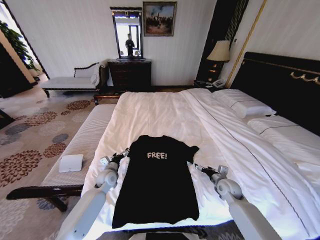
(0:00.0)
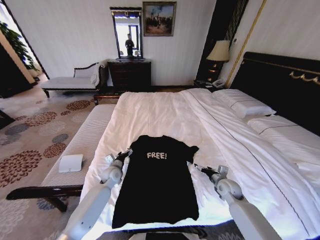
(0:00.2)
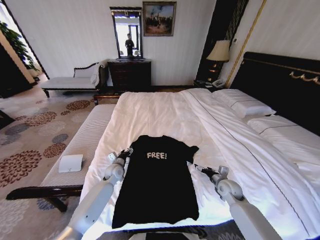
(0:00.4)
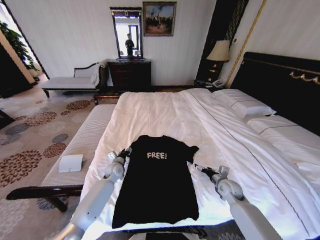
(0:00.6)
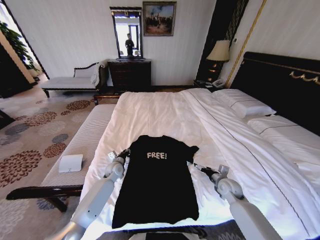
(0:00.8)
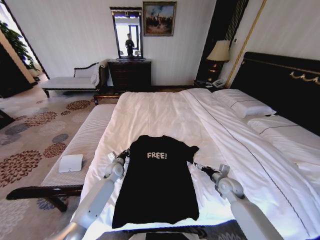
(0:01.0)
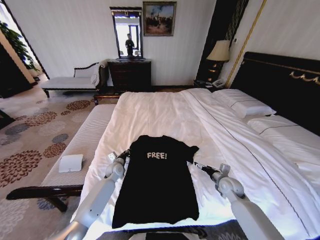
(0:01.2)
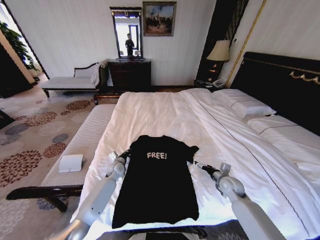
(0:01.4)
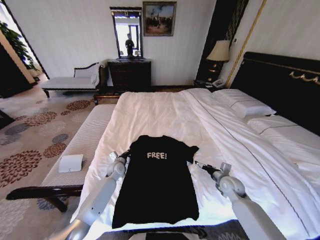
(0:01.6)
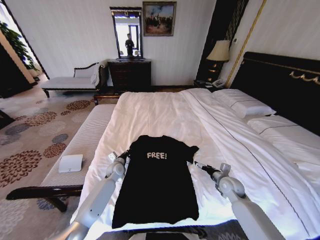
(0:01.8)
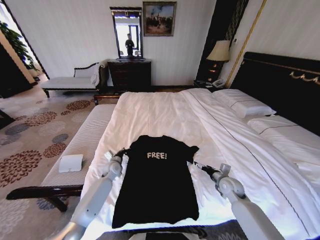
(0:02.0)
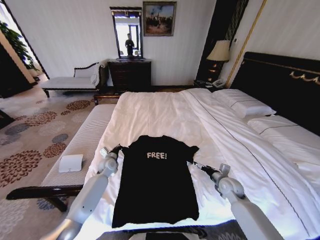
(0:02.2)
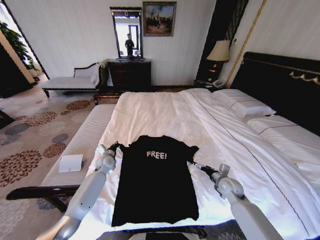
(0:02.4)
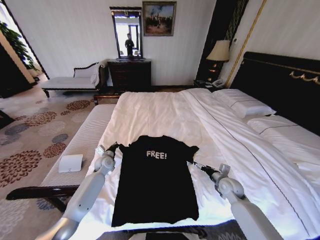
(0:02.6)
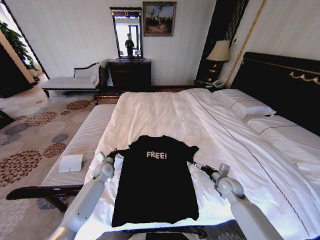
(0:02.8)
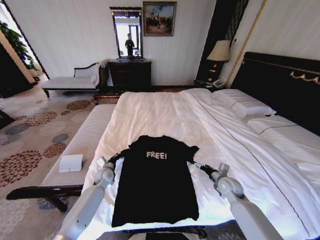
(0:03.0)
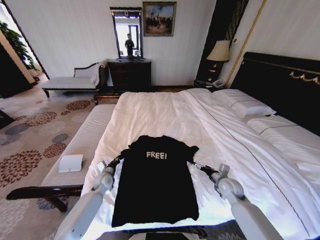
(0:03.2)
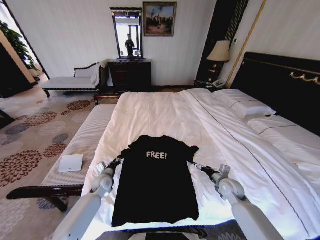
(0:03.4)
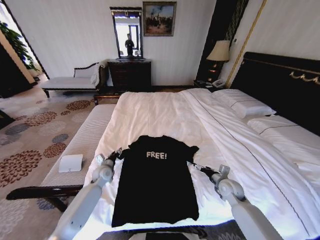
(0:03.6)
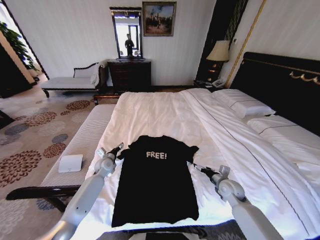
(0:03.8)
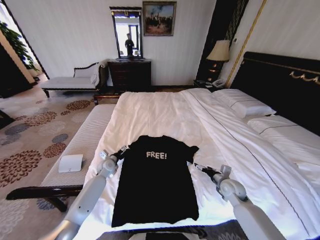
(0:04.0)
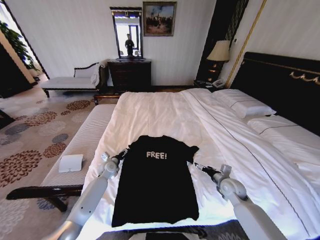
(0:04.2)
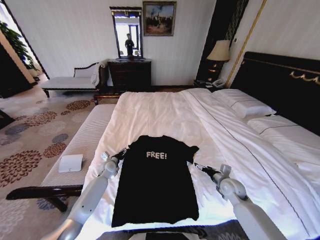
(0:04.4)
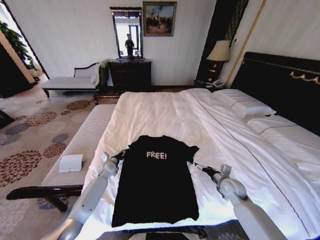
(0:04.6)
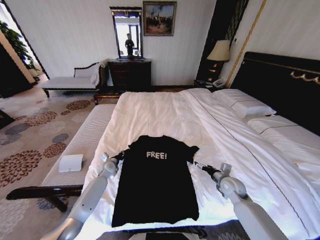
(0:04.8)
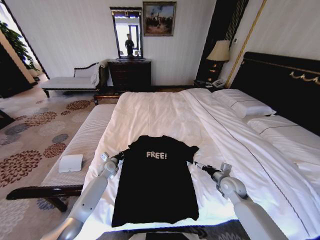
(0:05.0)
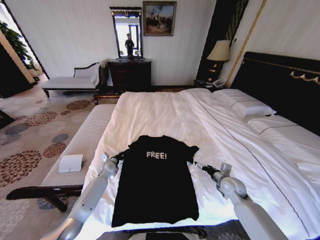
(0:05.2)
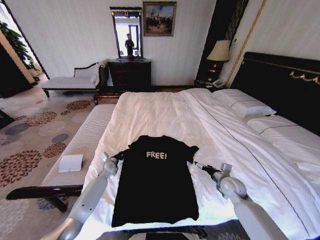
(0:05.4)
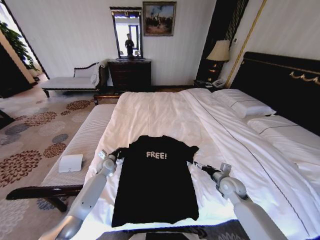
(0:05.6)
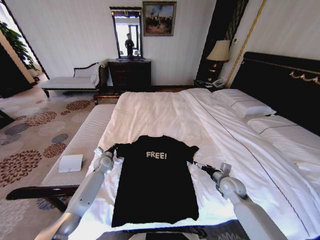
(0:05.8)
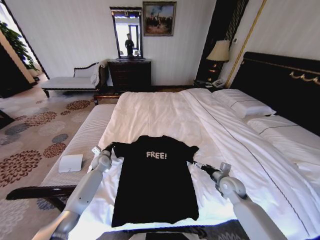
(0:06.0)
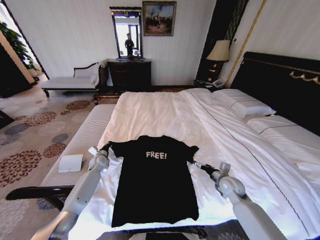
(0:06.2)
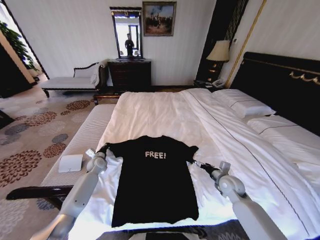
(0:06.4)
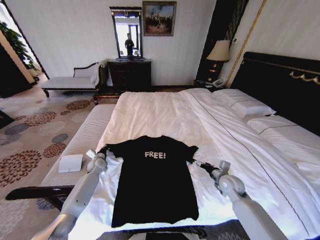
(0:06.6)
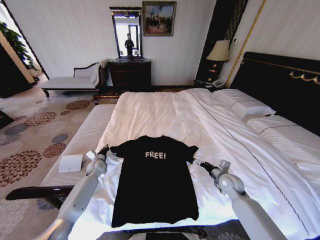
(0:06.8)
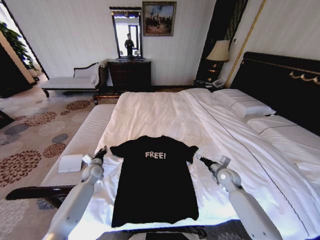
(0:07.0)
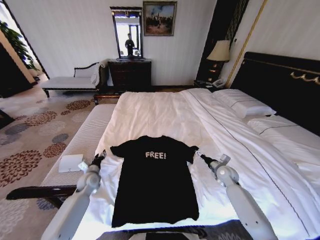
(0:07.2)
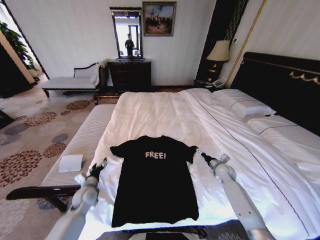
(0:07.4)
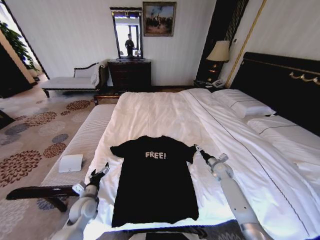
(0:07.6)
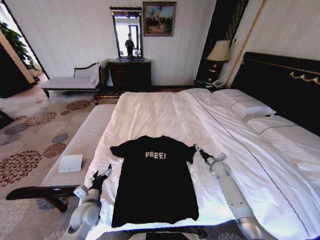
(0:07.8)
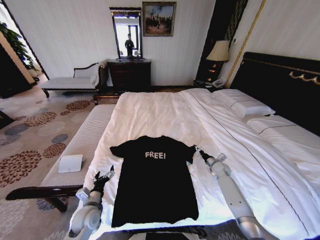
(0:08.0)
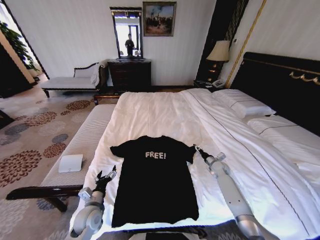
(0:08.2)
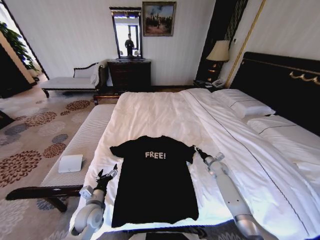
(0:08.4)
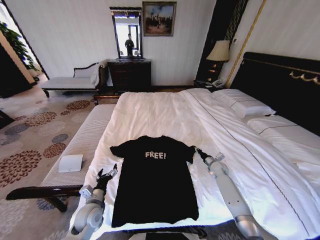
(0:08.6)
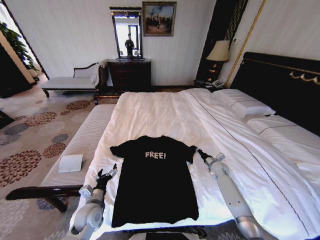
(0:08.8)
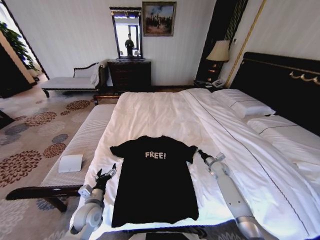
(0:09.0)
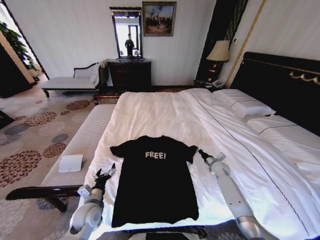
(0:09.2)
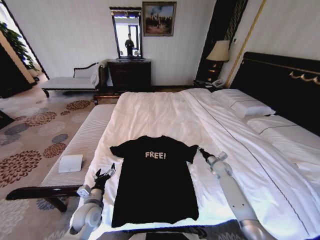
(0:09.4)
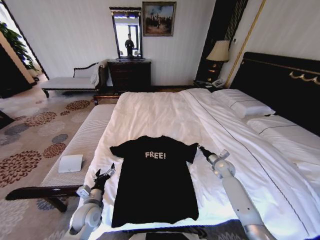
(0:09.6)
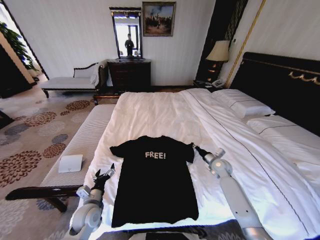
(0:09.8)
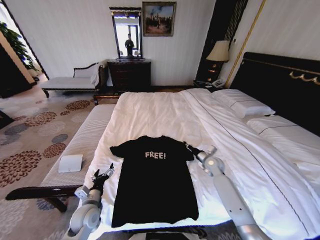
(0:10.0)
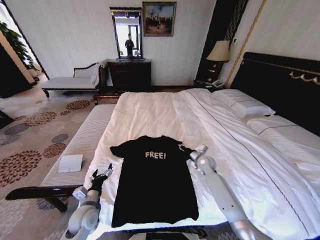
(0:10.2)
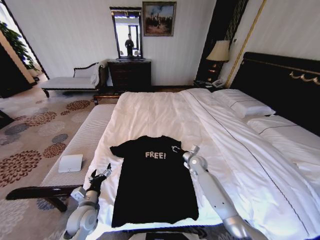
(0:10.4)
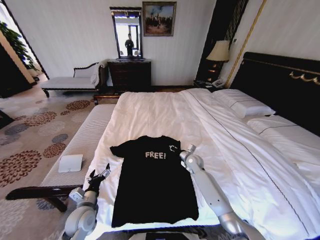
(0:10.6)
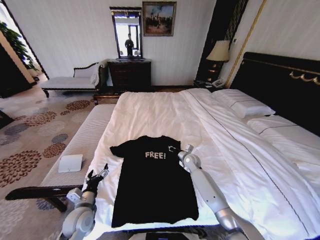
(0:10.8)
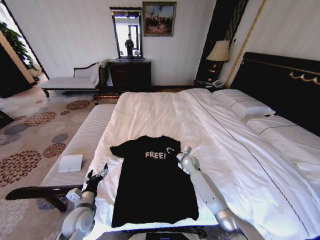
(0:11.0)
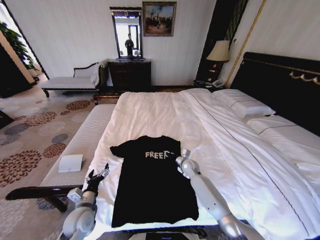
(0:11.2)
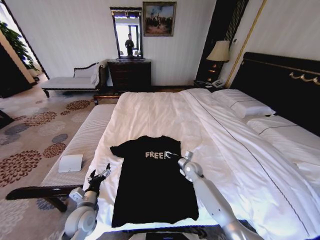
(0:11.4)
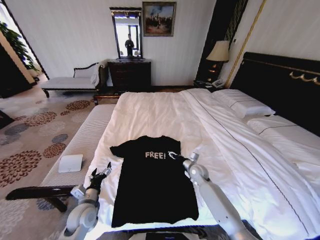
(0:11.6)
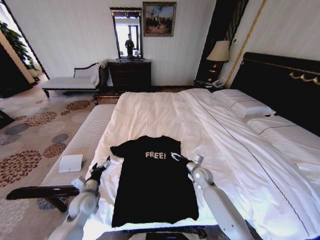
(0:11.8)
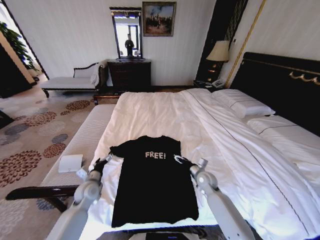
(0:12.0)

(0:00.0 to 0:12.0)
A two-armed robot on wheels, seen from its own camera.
Task of the whole recording: Fold the clothes on the bed.
0:00.0 - 0:01.6: The left gripper travels forward by about 5 cm, and closes up.
0:01.6 - 0:03.0: The left gripper moves to the left, approximately 5 cm.
0:03.0 - 0:04.4: The left gripper opens up.
0:04.4 - 0:06.0: The left gripper changes place by roughly 5 cm, and closes up.
0:06.0 - 0:07.6: The left gripper goes some 25 cm backward, and opens its fingers; the right gripper goes roughly 15 cm forward and downward.
0:07.6 - 0:09.0: The right gripper closes up.
0:09.0 - 0:10.4: The right gripper moves to the left, some 15 cm.
0:10.4 - 0:12.0: The left gripper is displaced forward by some 10 cm. The right gripper heads backward, covering roughly 10 cm, and opens.

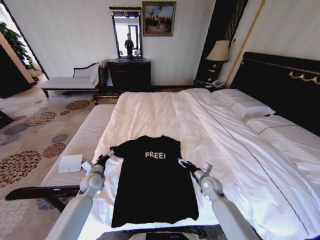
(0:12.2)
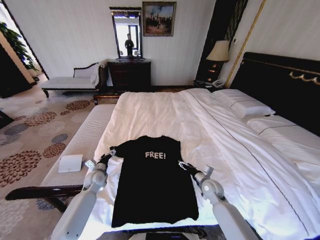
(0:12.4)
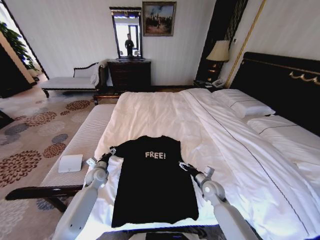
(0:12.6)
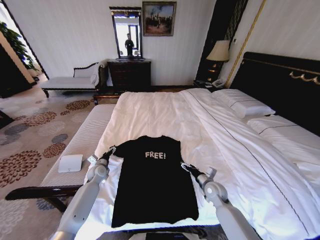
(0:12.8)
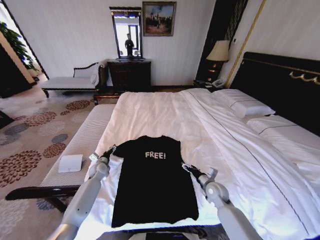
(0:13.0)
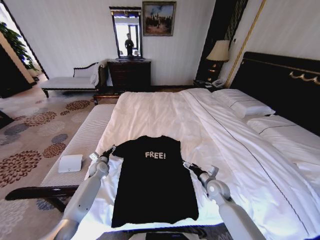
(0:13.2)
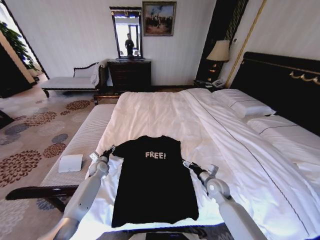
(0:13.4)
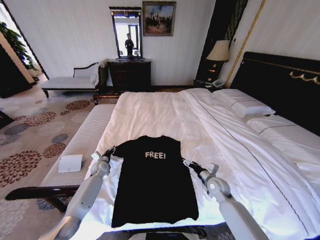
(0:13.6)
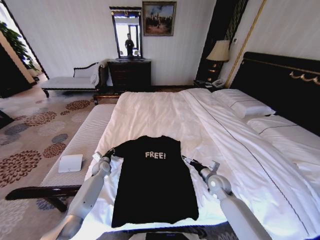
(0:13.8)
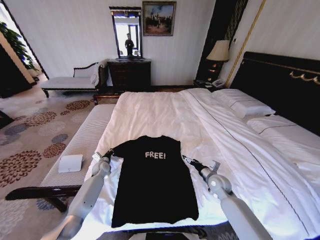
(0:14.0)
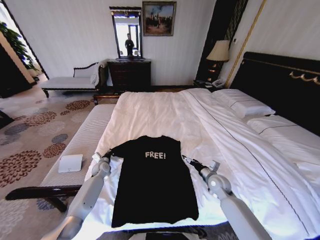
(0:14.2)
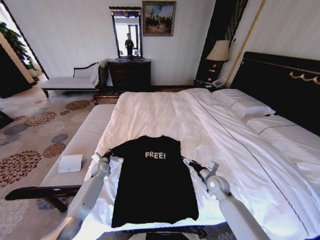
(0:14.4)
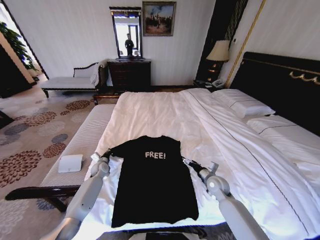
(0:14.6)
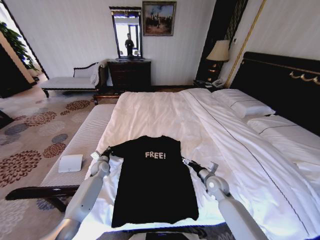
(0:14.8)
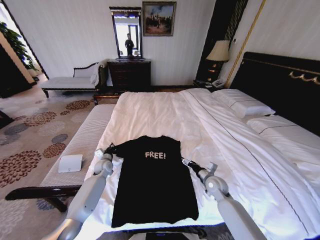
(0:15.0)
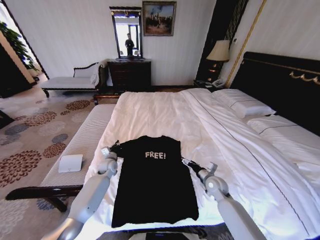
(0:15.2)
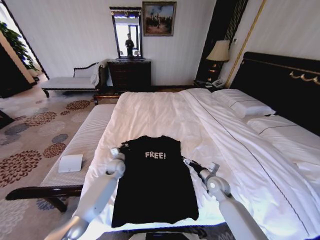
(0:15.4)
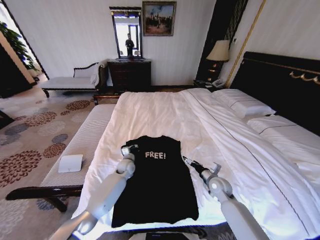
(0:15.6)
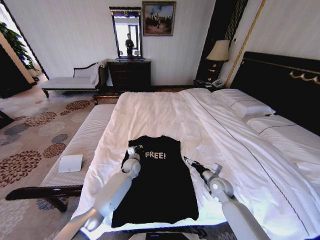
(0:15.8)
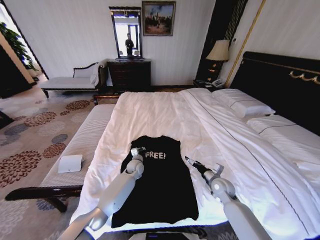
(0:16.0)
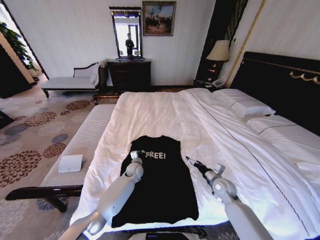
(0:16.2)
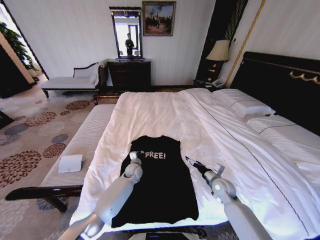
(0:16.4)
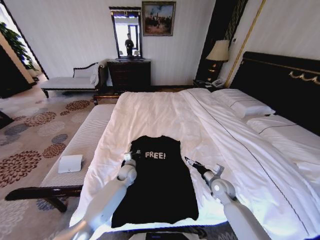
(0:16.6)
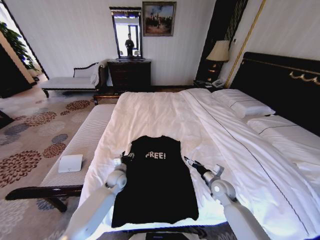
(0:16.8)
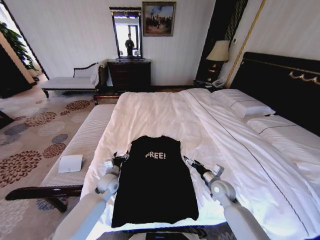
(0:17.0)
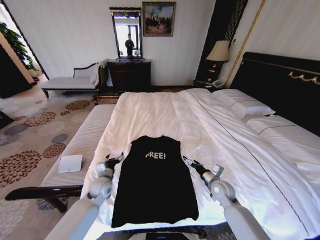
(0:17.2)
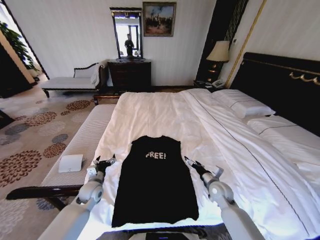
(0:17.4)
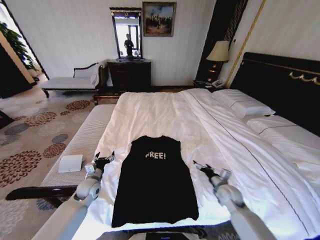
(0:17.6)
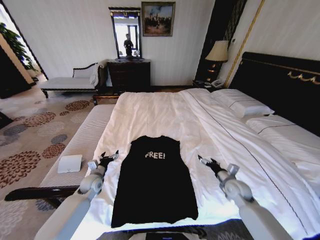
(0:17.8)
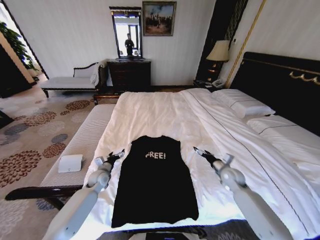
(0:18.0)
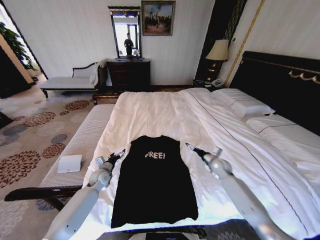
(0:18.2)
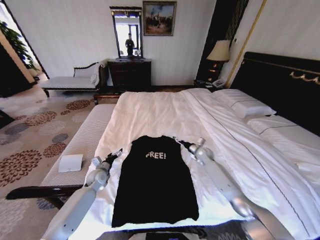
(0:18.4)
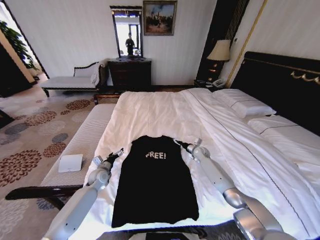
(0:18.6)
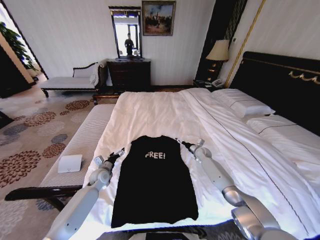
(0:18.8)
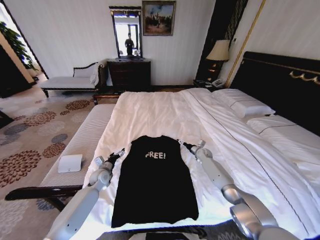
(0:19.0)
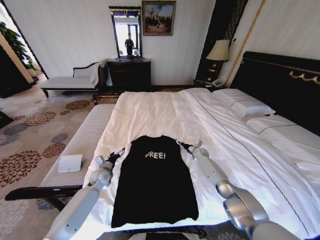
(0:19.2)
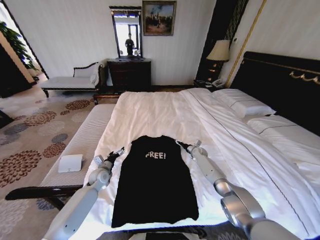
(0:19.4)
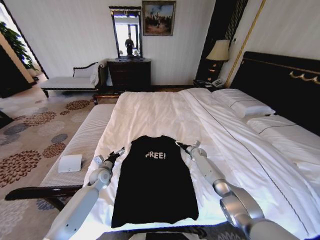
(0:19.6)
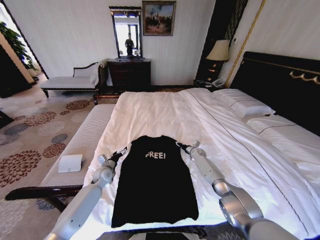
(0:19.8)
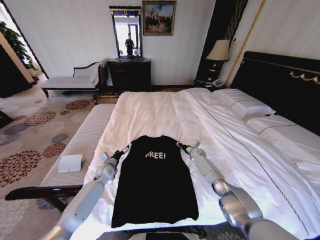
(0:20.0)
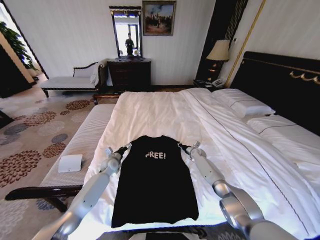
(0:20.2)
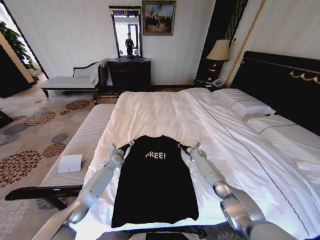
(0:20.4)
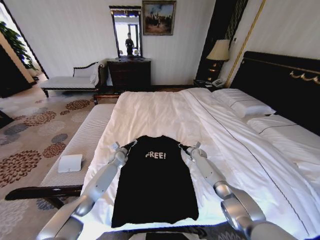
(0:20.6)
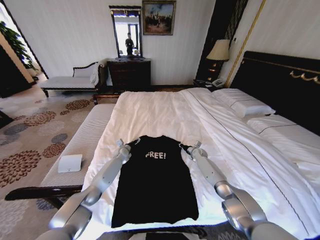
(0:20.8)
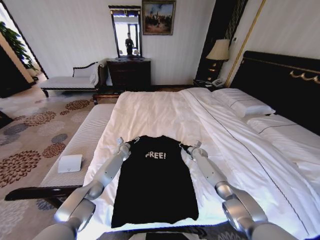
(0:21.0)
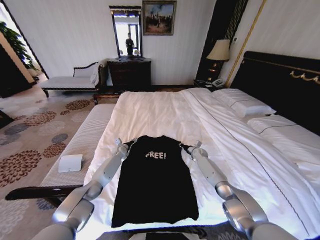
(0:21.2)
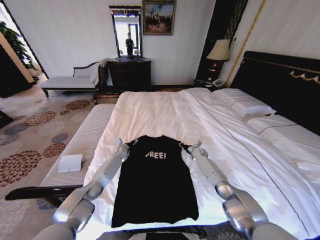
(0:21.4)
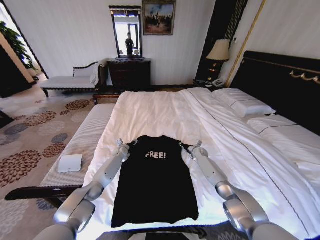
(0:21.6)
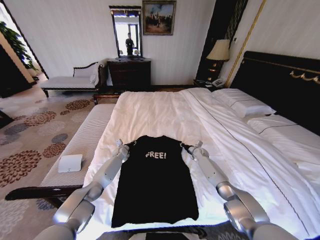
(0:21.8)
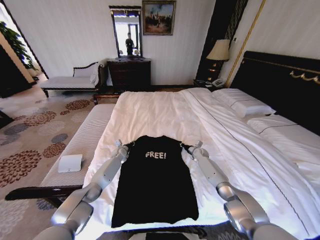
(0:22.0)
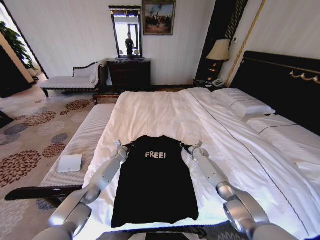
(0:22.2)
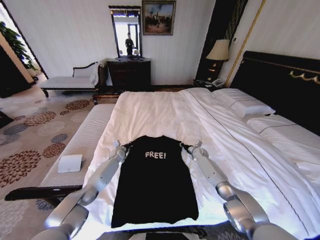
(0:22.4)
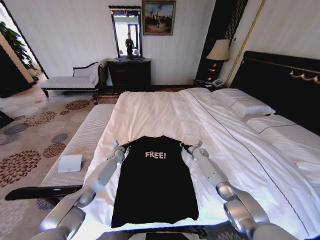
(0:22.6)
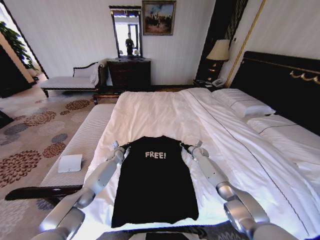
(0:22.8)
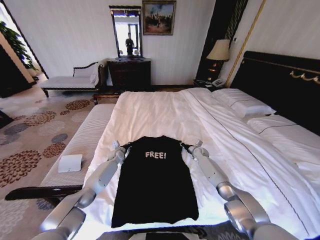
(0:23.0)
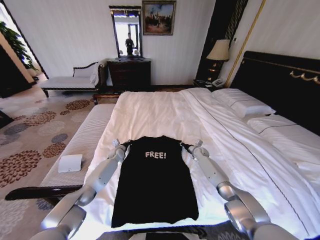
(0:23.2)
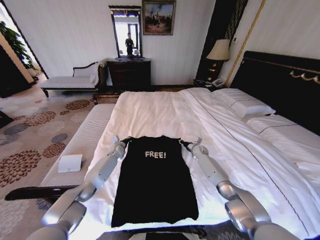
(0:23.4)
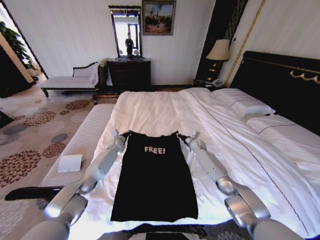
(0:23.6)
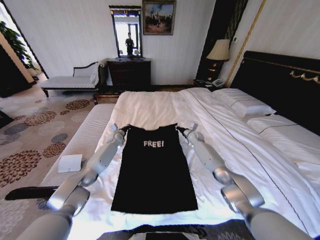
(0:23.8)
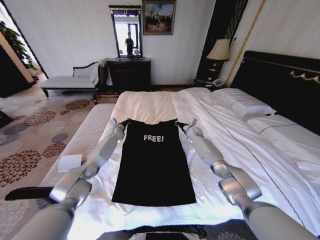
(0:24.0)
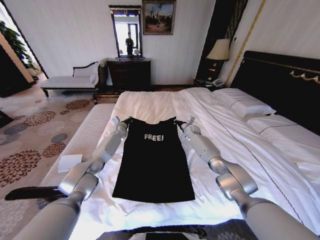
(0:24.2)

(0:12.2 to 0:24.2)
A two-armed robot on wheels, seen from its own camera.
Task of the whole recording: Fold the clothes on the bed.
0:12.2 - 0:13.8: The left gripper travels forward and downward by some 10 cm, and closes up.
0:13.8 - 0:15.2: The left gripper travels to the right by approximately 5 cm, and closes.
0:15.2 - 0:16.6: The left gripper travels to the right by roughly 10 cm, and opens up.
0:16.6 - 0:18.2: The left gripper heads to the left, covering roughly 15 cm, and opens, while the right gripper moves forward, approximately 10 cm.
0:18.2 - 0:19.8: The right gripper travels forward and downward by roughly 15 cm, and closes up.
0:19.8 - 0:21.2: The left gripper is displaced forward by approximately 15 cm. Meanwhile the right gripper closes.
0:21.2 - 0:22.6: The left gripper closes its fingers.
0:22.6 - 0:24.2: The left gripper travels upward and forward by about 15 cm. Meanwhile the right gripper is displaced upward, forward and to the left by approximately 15 cm.
